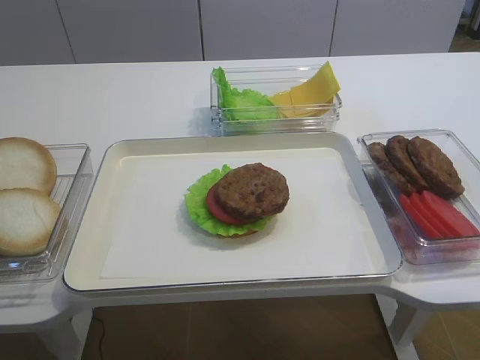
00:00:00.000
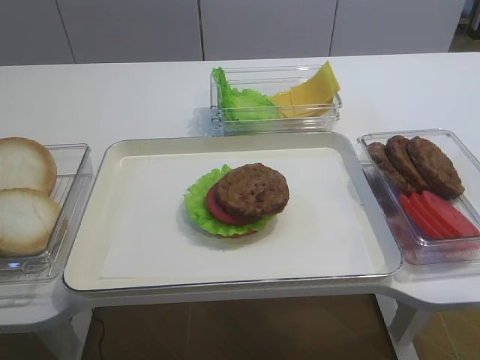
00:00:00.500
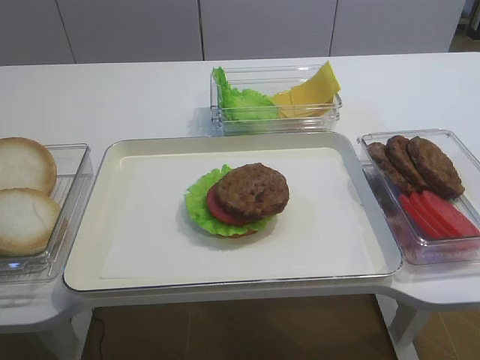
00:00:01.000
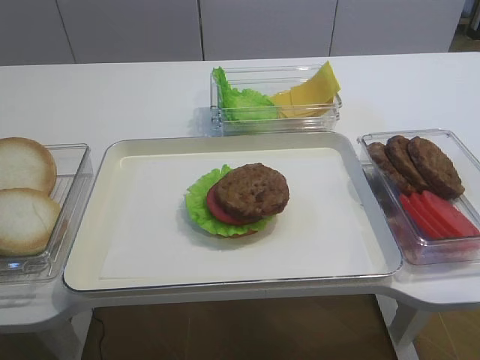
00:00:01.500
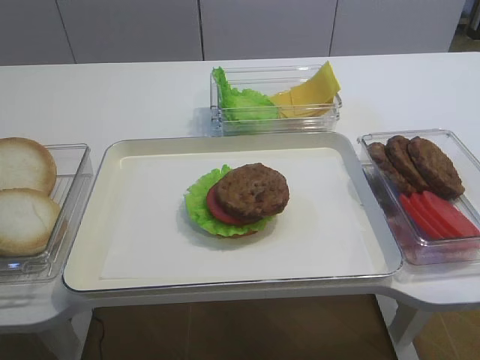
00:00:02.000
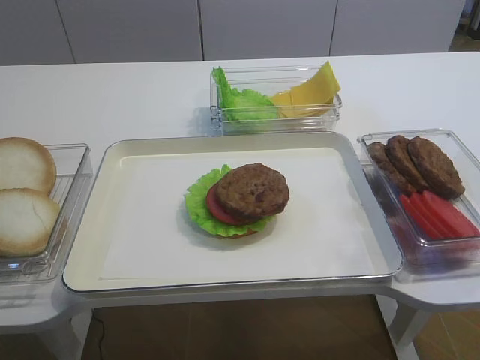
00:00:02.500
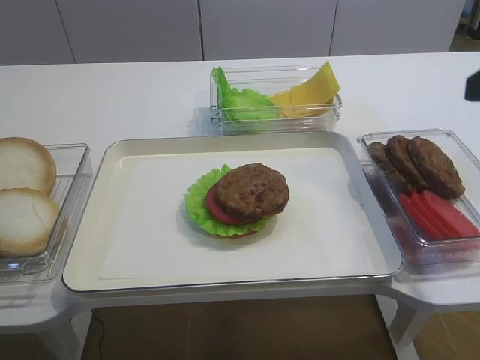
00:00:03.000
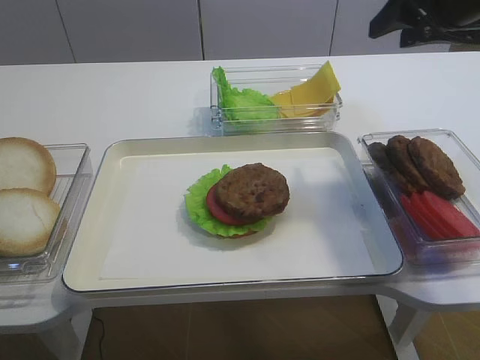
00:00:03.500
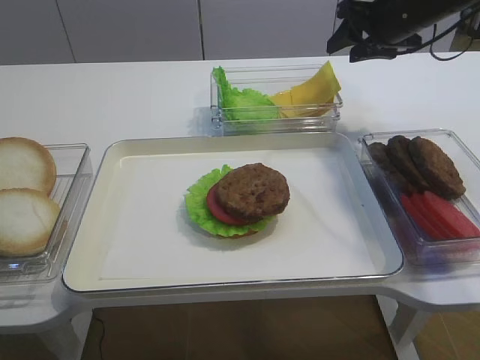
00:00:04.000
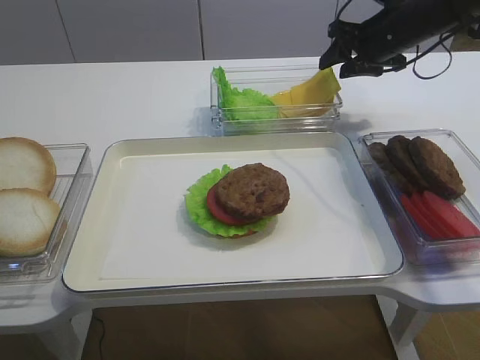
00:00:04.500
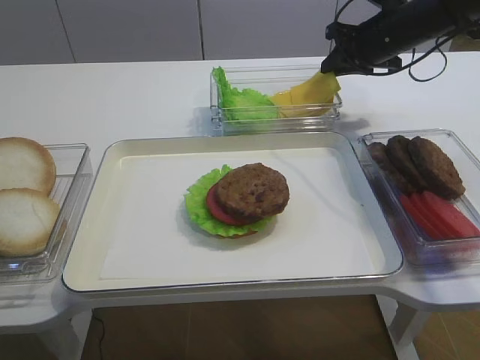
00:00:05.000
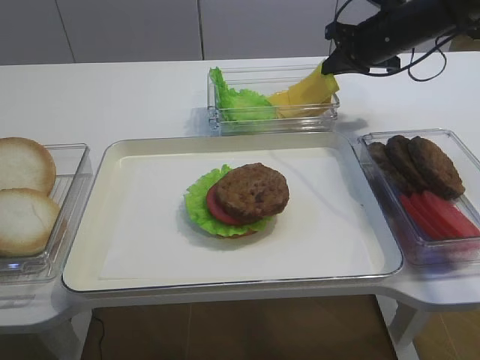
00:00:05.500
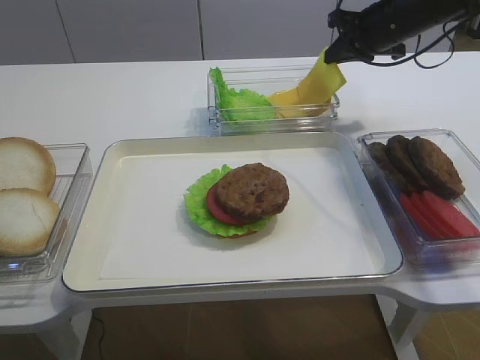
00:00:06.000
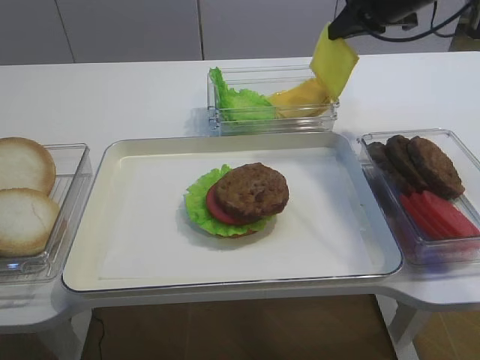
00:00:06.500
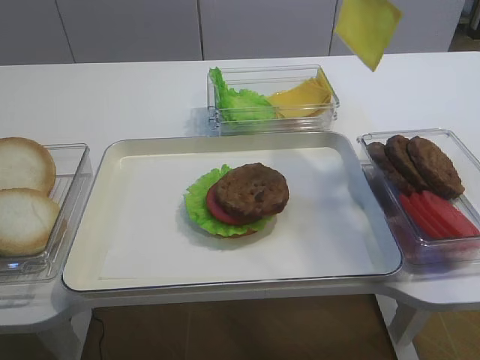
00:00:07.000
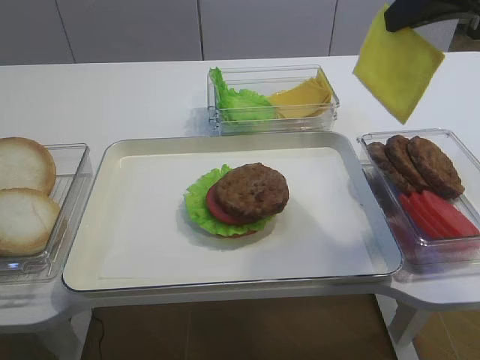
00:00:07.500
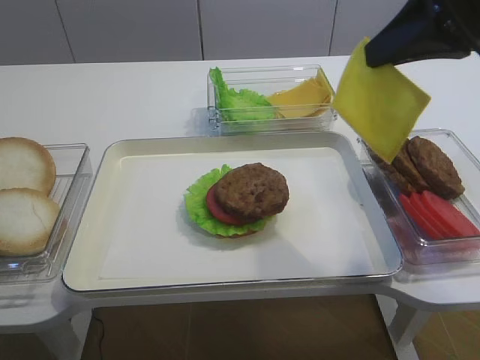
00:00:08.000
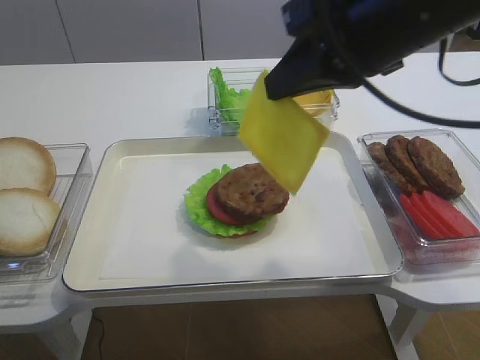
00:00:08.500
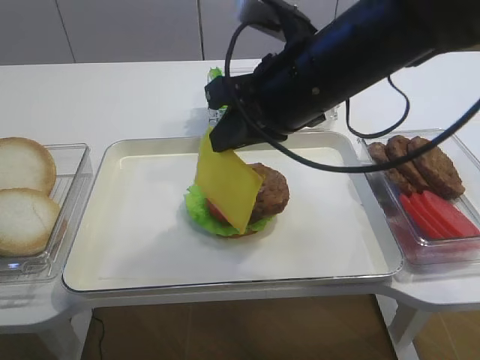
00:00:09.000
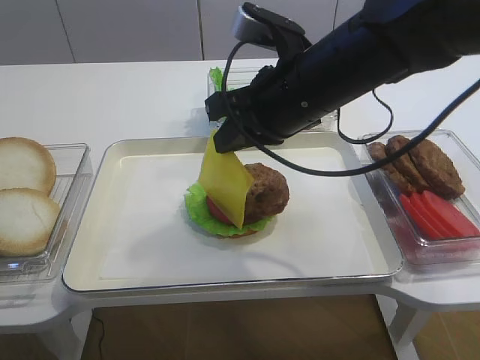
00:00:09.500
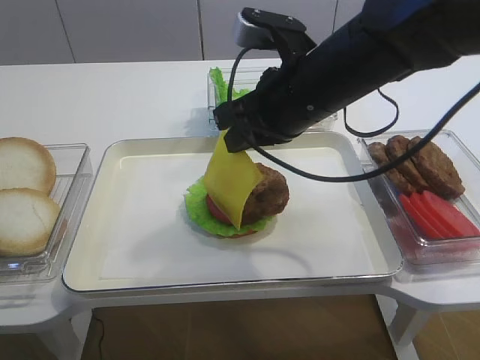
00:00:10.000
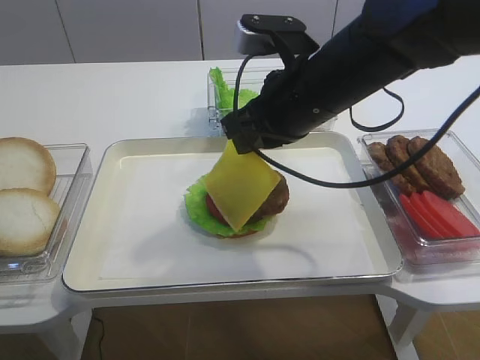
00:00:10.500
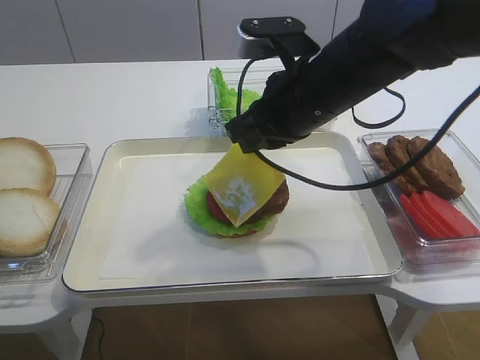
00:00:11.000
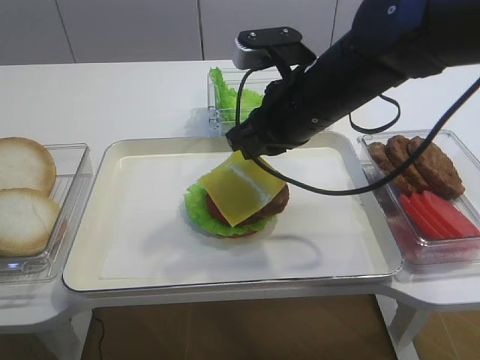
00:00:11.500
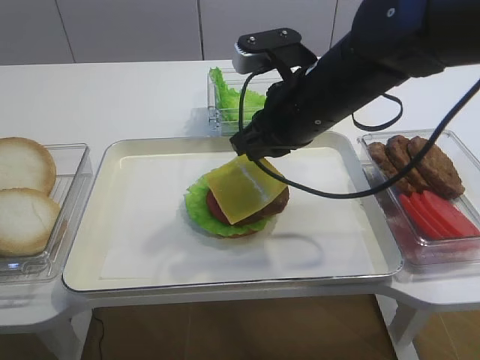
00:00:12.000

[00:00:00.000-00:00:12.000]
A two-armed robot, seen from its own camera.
Step, 00:00:00.000 to 00:00:06.500: Pick up the cheese slice with the right gripper.
00:00:02.000 to 00:00:04.000: The right gripper moves forward, some 50 cm.
00:00:04.000 to 00:00:06.000: The right gripper closes its fingers.
00:00:06.000 to 00:00:08.000: The right gripper goes approximately 25 cm backward and upward.
00:00:08.000 to 00:00:10.000: The right gripper shifts some 15 cm to the left and downward.
00:00:10.000 to 00:00:12.000: The grippers make only small movements.

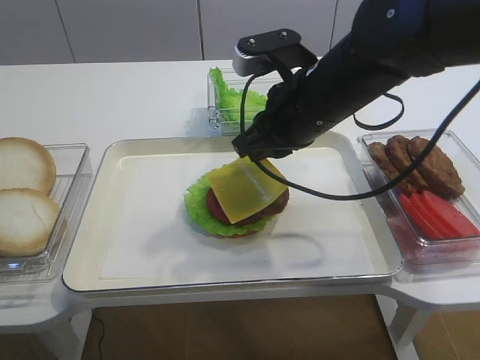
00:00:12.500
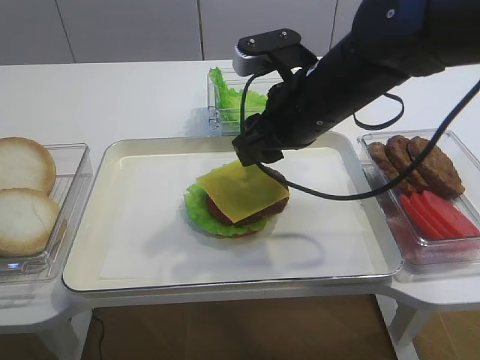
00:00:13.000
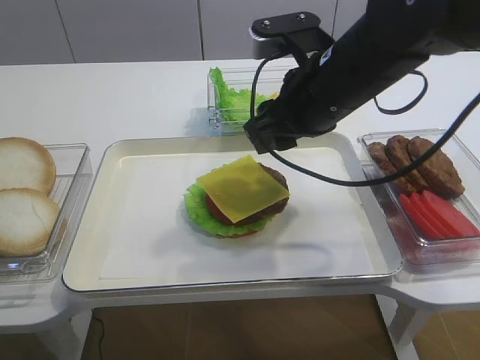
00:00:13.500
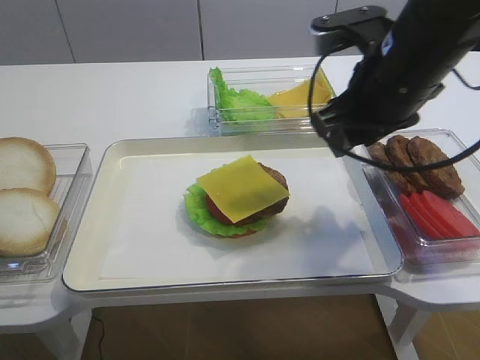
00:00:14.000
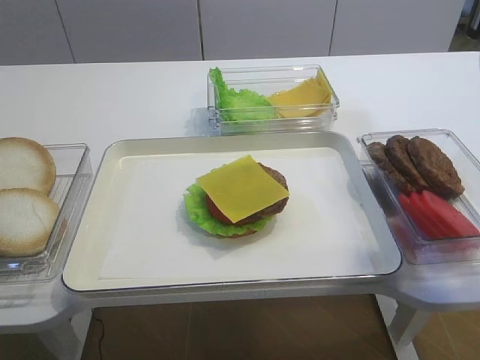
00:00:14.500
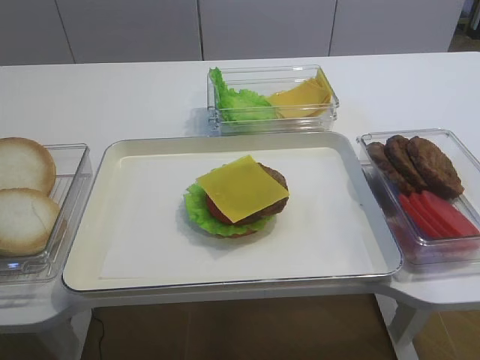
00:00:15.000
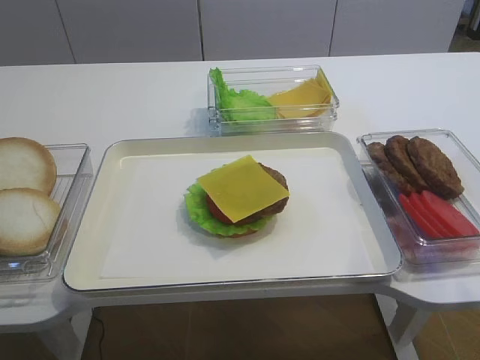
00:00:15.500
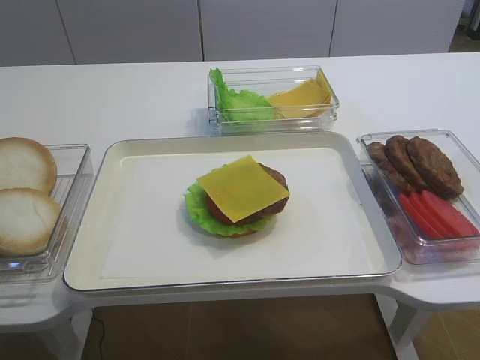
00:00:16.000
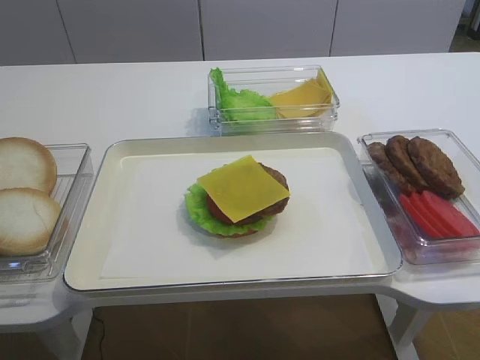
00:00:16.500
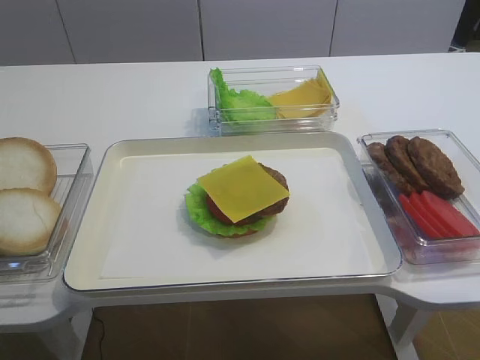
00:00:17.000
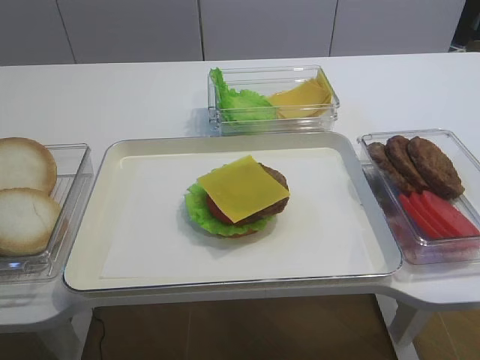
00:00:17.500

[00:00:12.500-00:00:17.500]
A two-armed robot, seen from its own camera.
00:00:12.500 to 00:00:15.000: The right gripper goes about 30 cm to the right, backward and upward, and opens.
00:00:15.000 to 00:00:17.500: The right gripper heads backward and downward, covering approximately 15 cm.

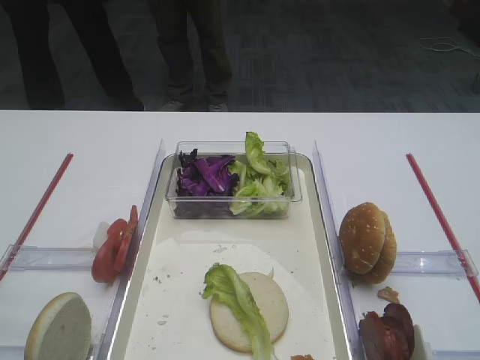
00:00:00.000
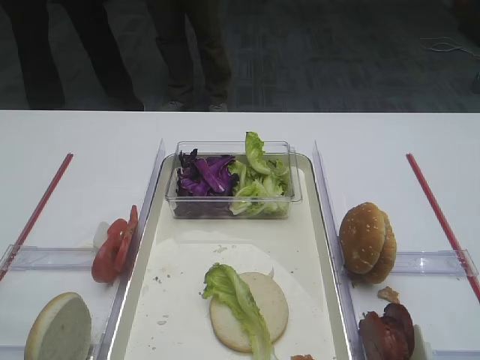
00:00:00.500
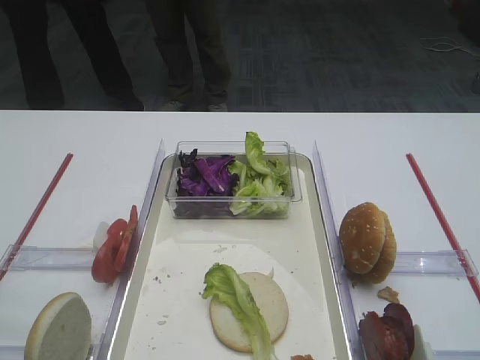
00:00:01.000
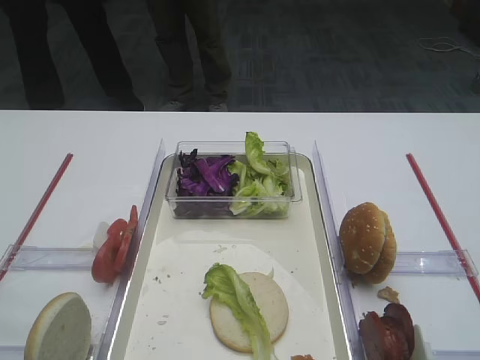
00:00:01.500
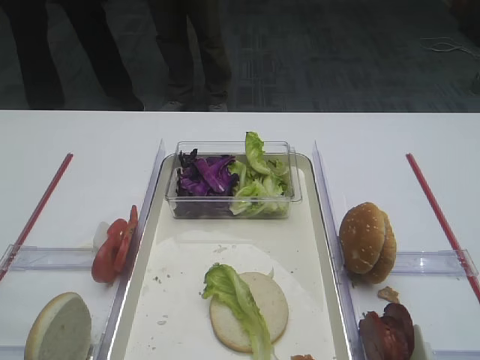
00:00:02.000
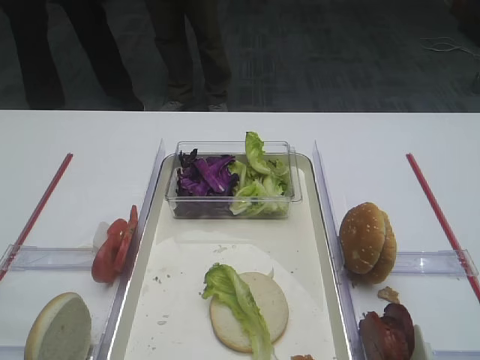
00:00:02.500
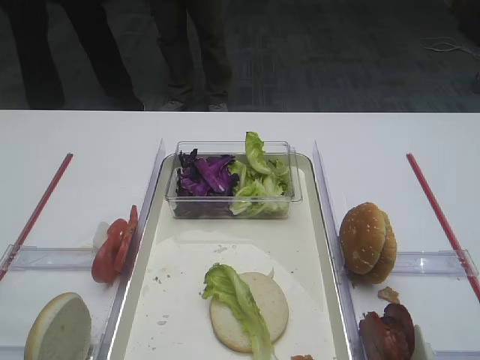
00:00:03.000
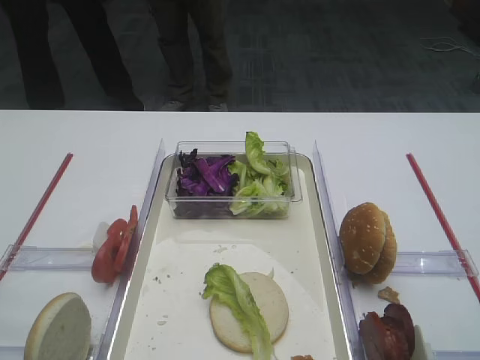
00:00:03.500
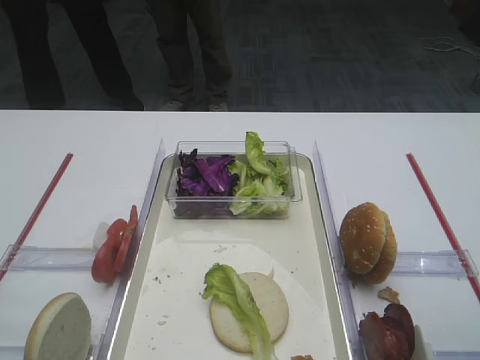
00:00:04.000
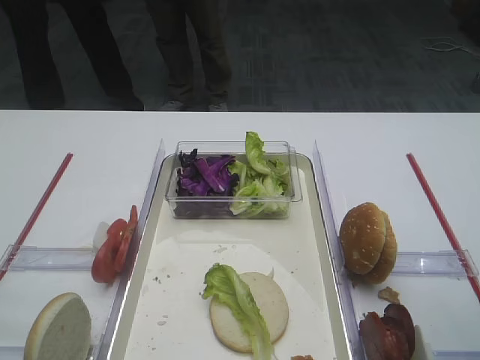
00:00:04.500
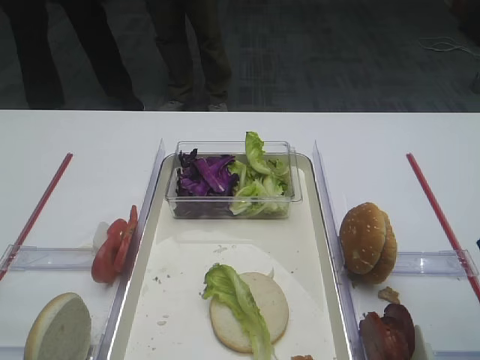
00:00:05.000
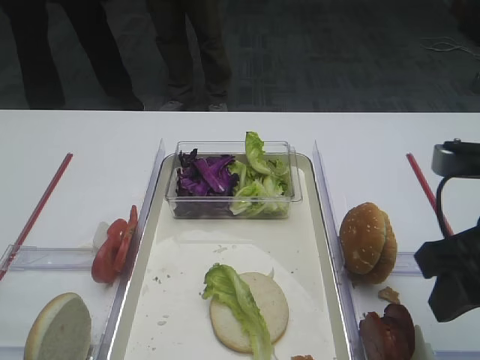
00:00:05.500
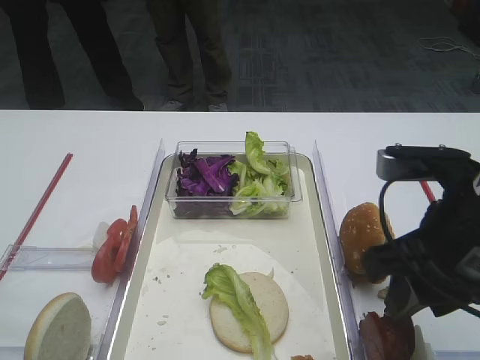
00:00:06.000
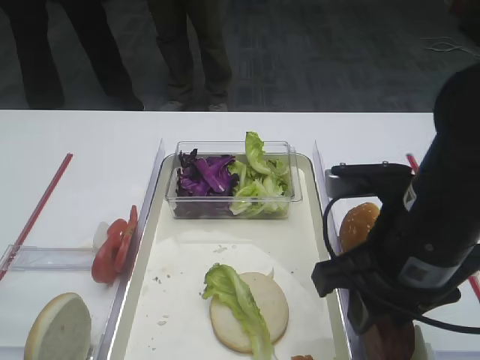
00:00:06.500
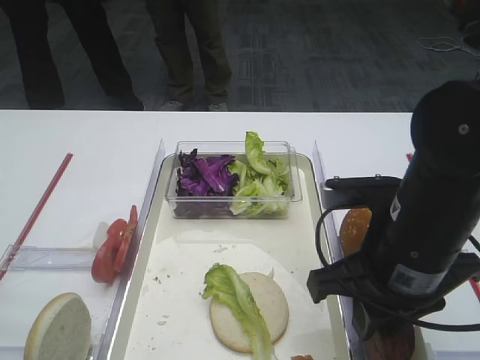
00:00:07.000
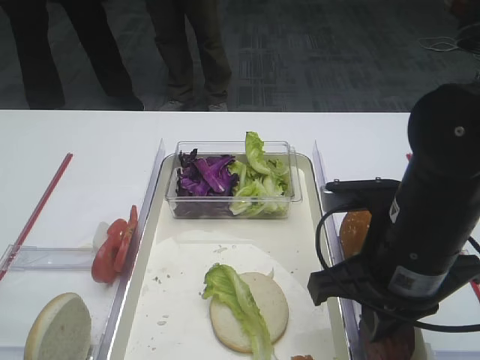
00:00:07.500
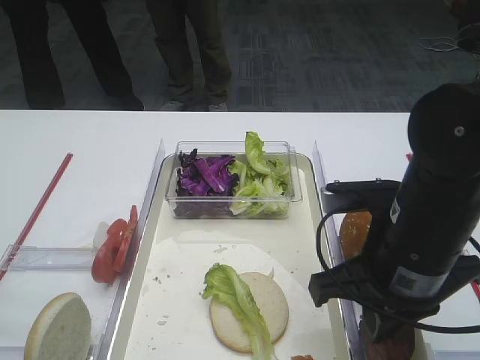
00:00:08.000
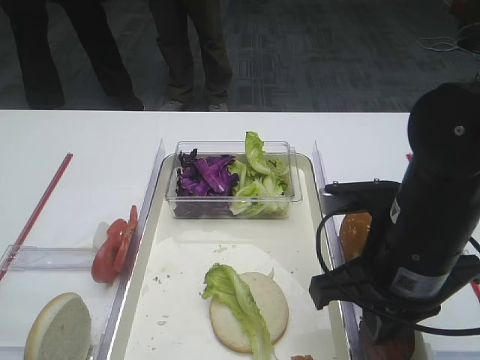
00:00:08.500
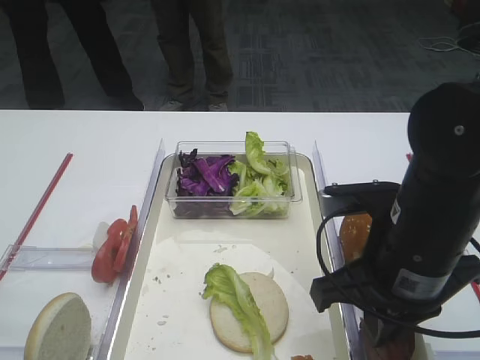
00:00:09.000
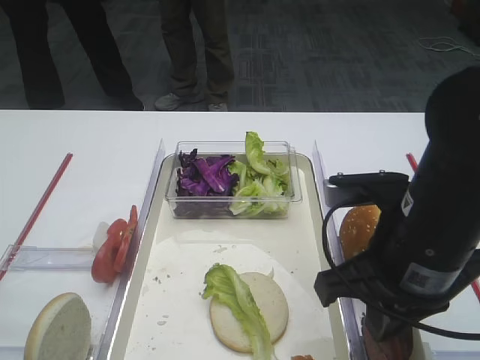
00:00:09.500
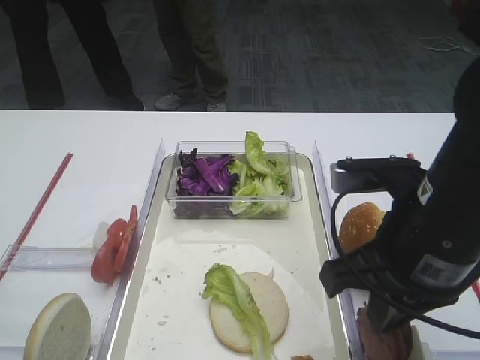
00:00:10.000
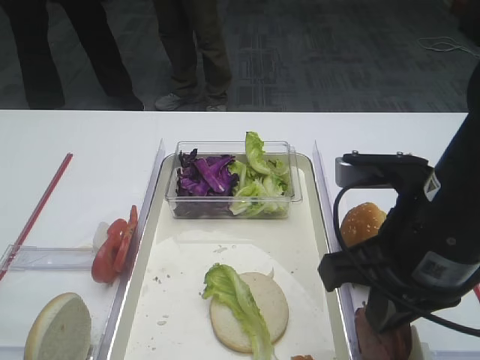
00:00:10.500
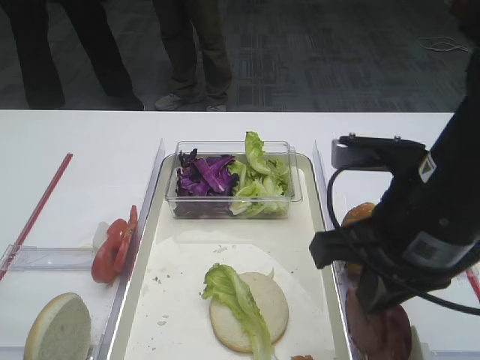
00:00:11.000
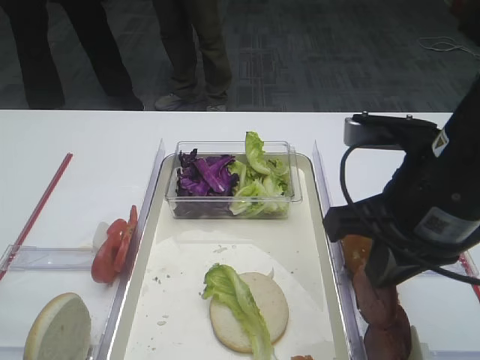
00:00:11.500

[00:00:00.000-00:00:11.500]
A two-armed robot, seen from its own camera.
Step, 00:00:00.000 to 00:00:11.000: Pick up the cutlet with the right gripper.
00:00:04.000 to 00:00:06.000: The right gripper moves to the left, some 10 cm.
00:00:06.000 to 00:00:07.500: The right gripper moves about 5 cm, and closes up.
00:00:07.500 to 00:00:11.500: The grippers move only a little.
